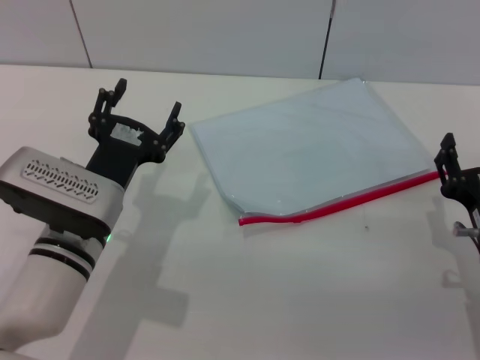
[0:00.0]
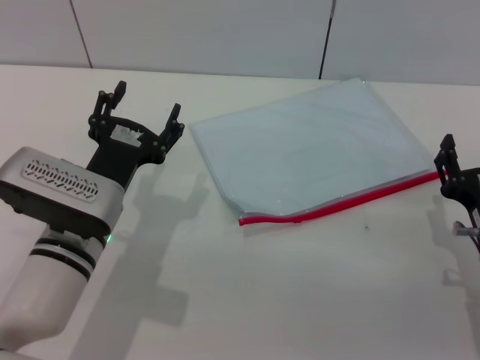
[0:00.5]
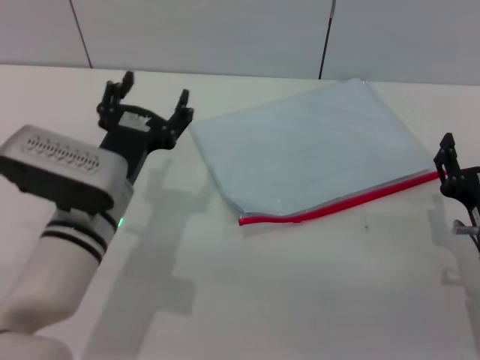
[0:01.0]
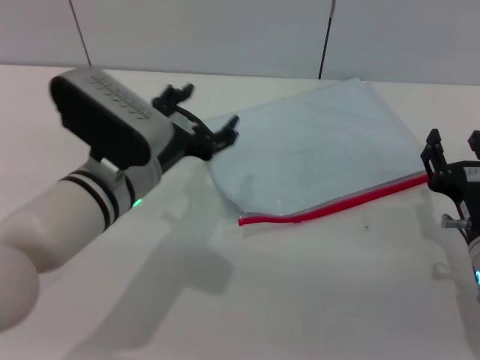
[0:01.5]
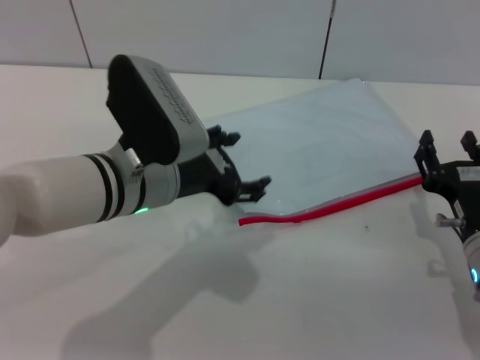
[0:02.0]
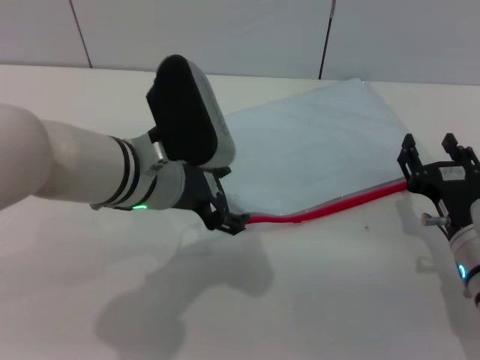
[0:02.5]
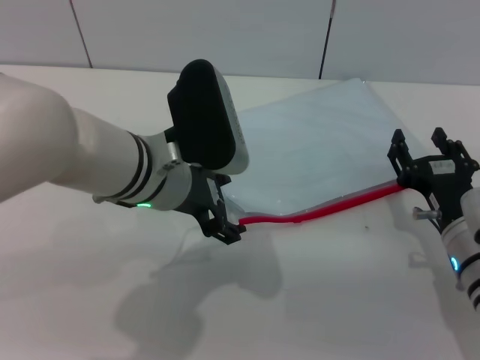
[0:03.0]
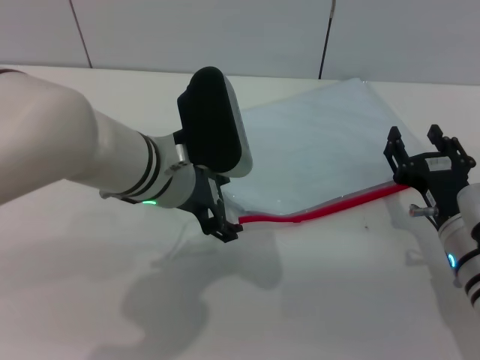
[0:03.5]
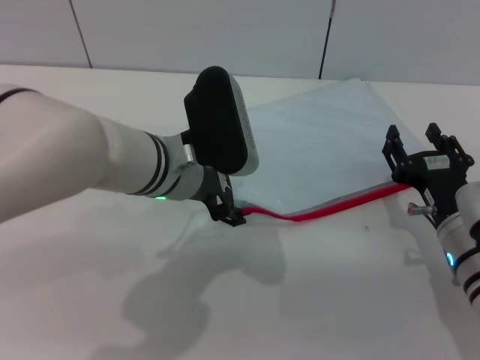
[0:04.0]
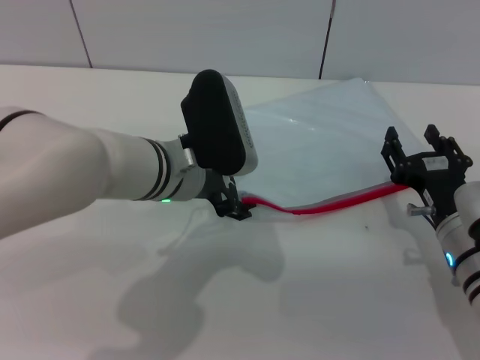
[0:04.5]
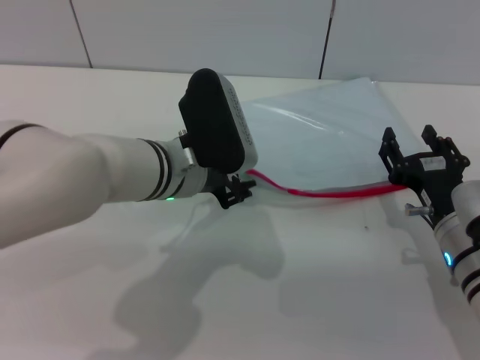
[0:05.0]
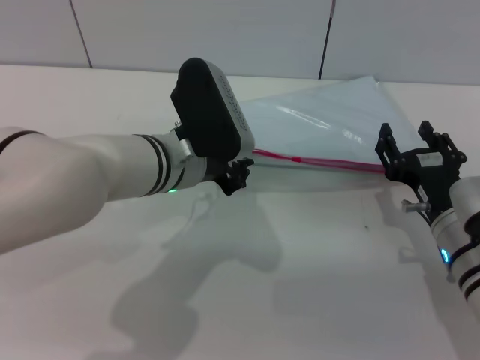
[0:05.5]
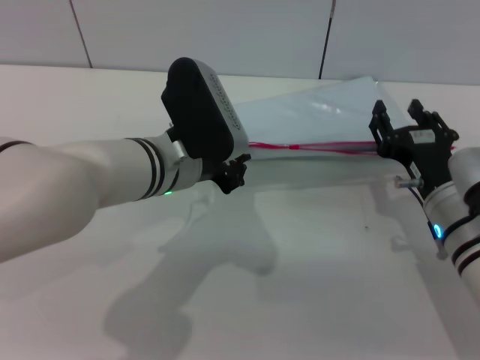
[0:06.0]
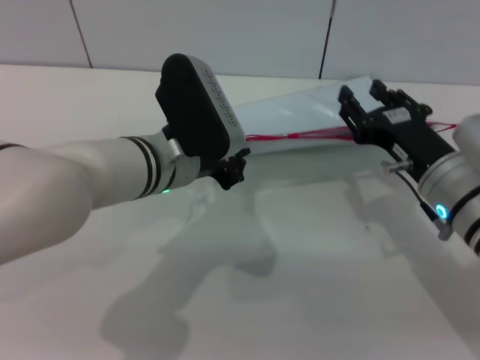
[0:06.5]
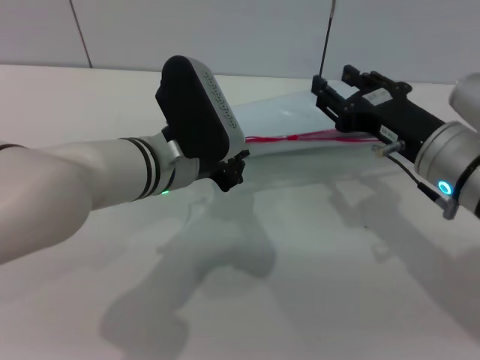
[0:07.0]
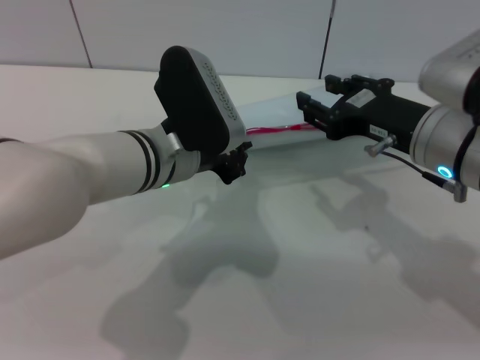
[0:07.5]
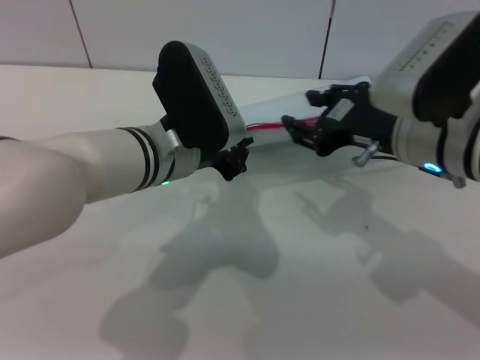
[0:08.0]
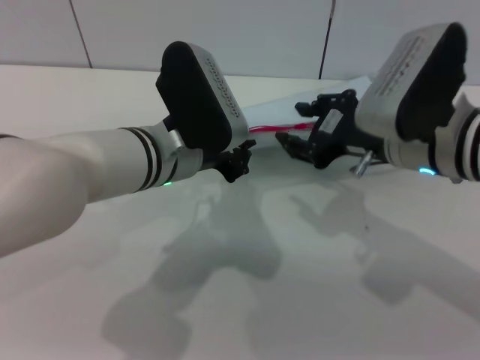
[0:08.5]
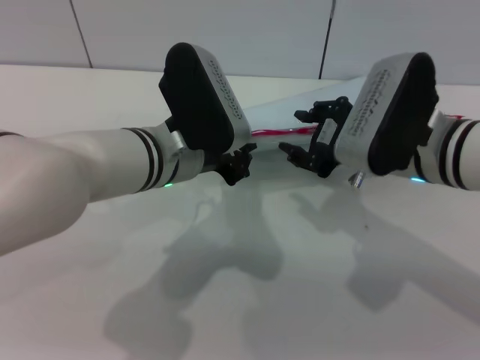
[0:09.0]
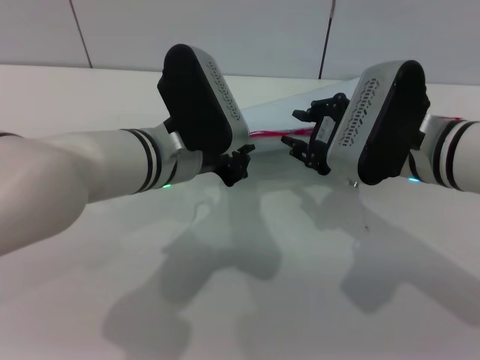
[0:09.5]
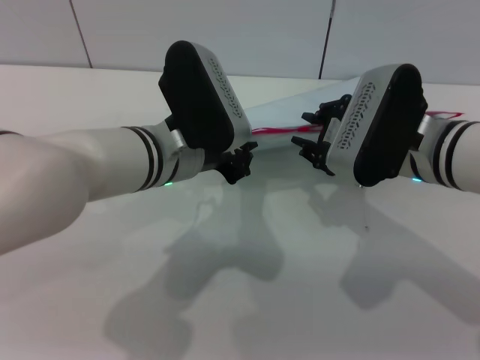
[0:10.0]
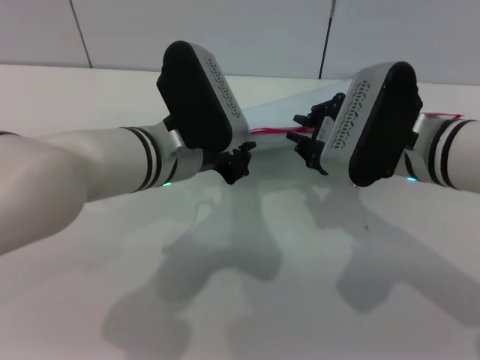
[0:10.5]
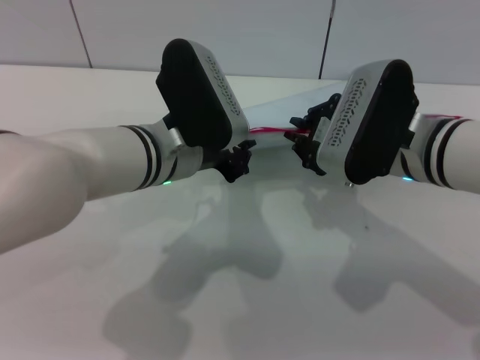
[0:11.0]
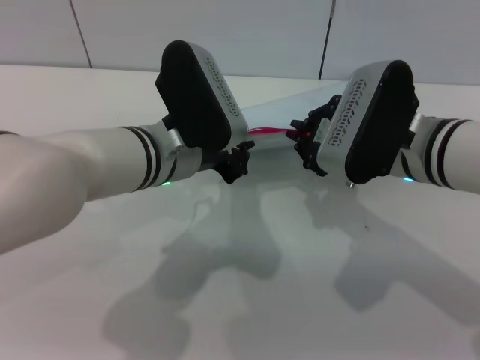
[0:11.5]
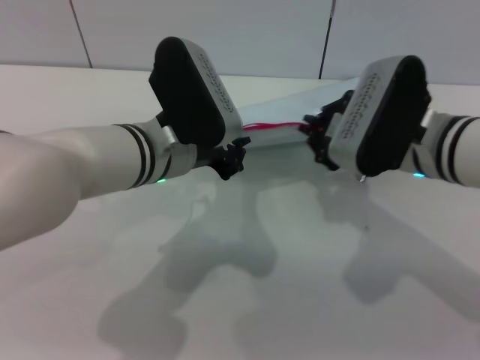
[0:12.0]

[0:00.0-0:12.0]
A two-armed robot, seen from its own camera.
Step, 0:00.0 to 0:05.5: Pick up the transparent plastic bag with the left gripper.
0:00.0 to 0:02.0: The left gripper goes roughly 5 cm upward.
0:04.0 to 0:06.0: The left gripper closes its fingers.
0:06.0 to 0:08.0: The right gripper heads upward, covering roughly 10 cm.
0:10.0 to 0:12.0: The right gripper closes its fingers.

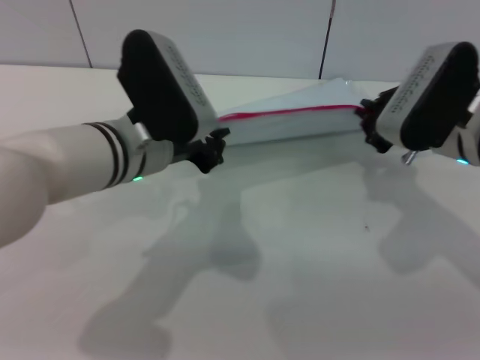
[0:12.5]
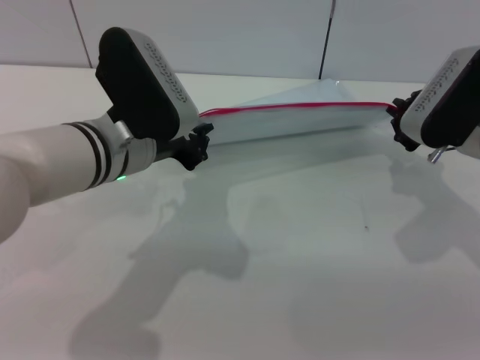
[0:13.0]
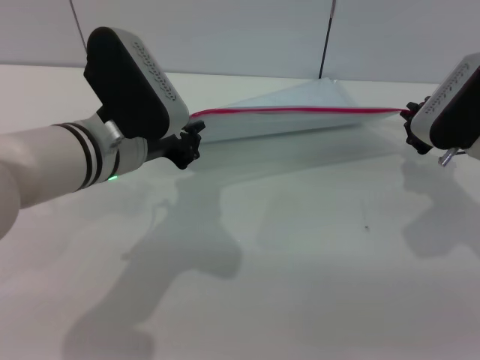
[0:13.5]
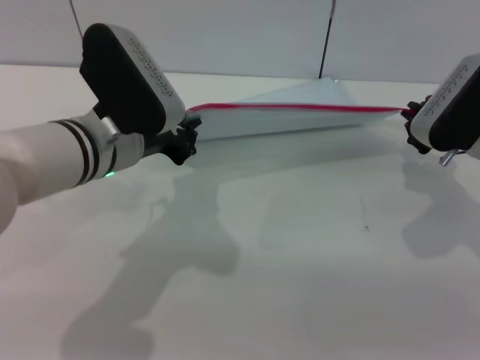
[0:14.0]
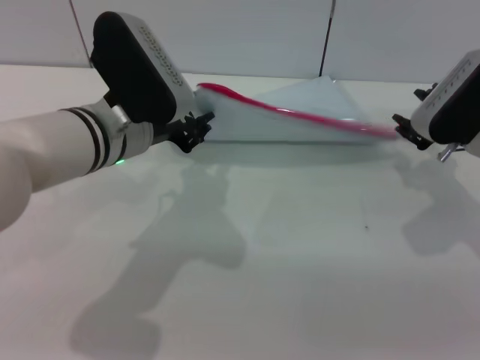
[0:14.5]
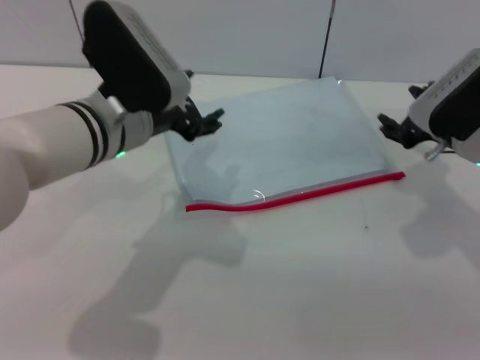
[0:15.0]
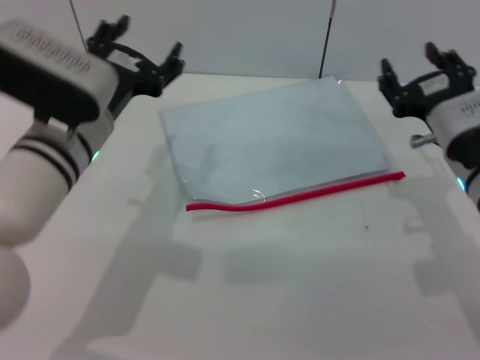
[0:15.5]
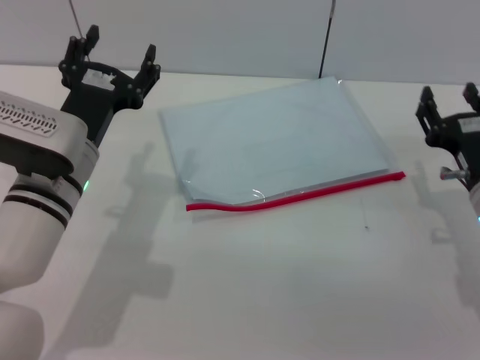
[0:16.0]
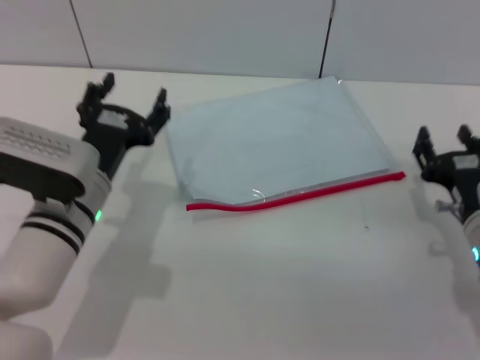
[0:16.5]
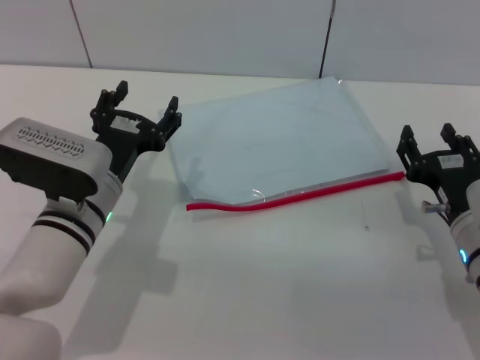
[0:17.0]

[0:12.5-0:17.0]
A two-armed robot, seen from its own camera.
Step, 0:12.5 to 0:14.5: Pulling up the zipper on the transparent plastic bag with the right gripper to close it.
Step, 0:15.0 to 0:15.5: Place the transparent plastic bag.
0:12.5 to 0:14.5: The right gripper opens up.
0:14.5 to 0:17.0: The left gripper heads downward, covering roughly 10 cm, and opens; the right gripper travels backward and downward by about 15 cm, and opens up.
